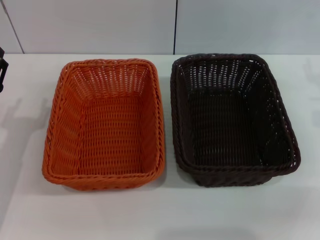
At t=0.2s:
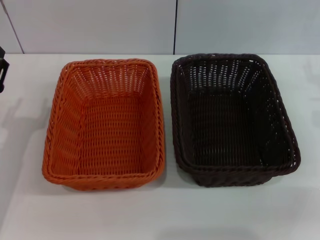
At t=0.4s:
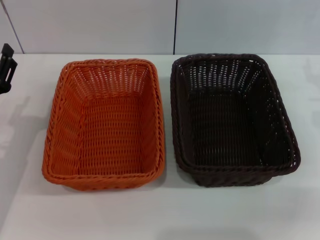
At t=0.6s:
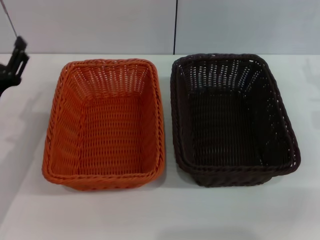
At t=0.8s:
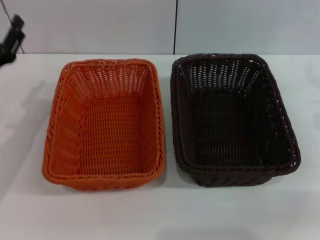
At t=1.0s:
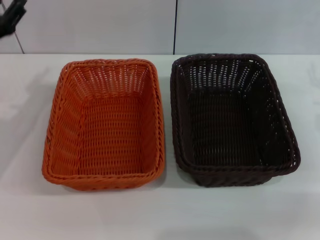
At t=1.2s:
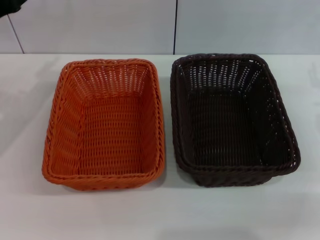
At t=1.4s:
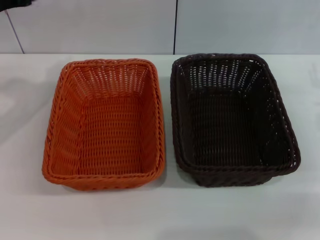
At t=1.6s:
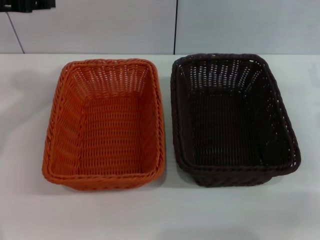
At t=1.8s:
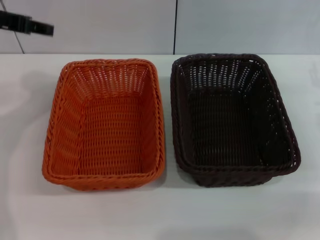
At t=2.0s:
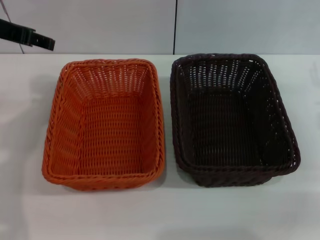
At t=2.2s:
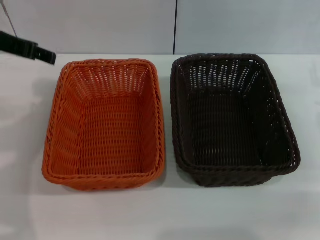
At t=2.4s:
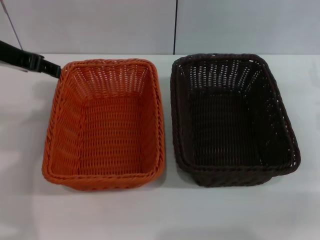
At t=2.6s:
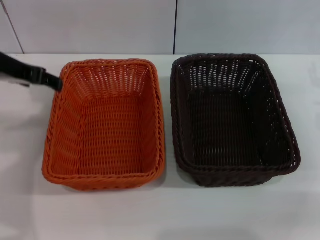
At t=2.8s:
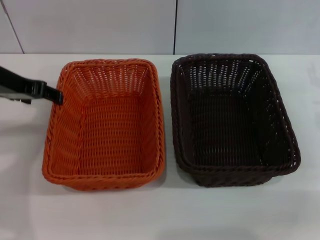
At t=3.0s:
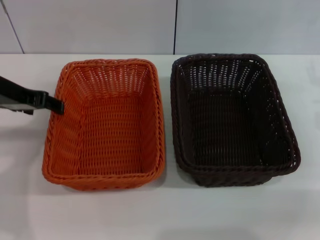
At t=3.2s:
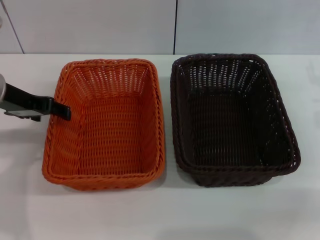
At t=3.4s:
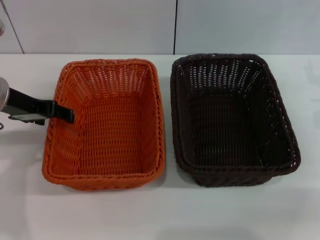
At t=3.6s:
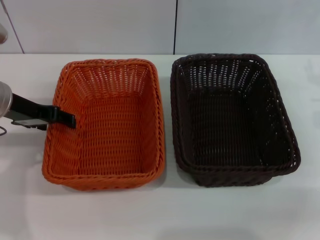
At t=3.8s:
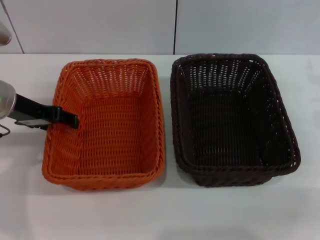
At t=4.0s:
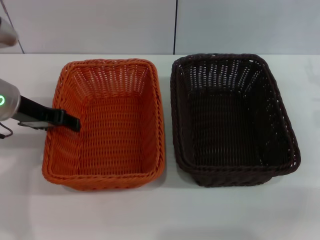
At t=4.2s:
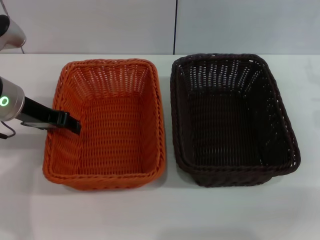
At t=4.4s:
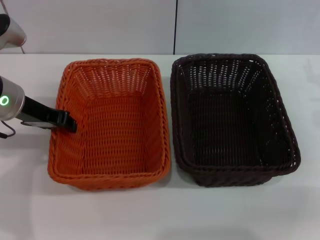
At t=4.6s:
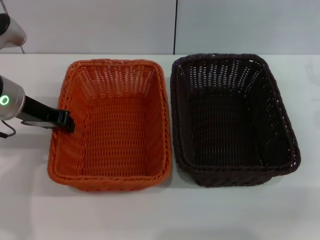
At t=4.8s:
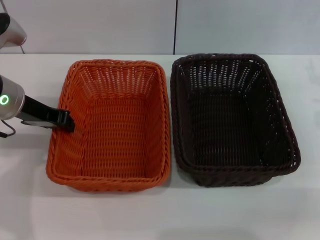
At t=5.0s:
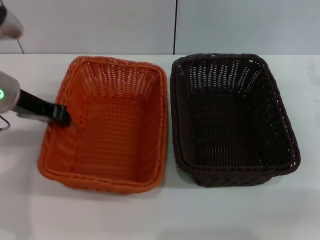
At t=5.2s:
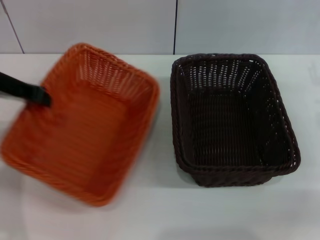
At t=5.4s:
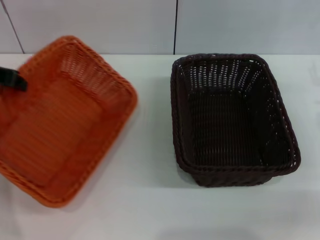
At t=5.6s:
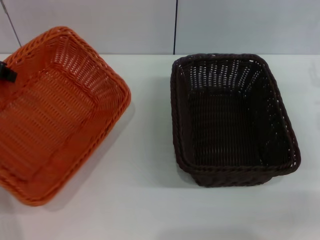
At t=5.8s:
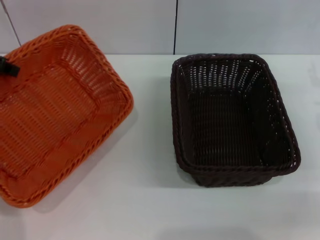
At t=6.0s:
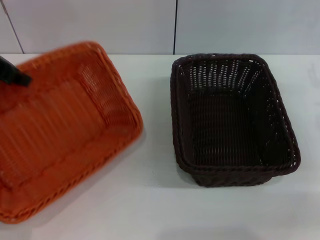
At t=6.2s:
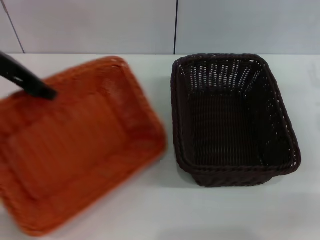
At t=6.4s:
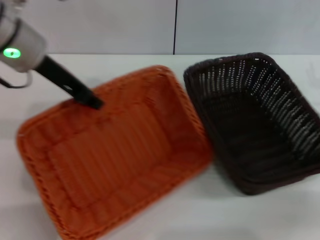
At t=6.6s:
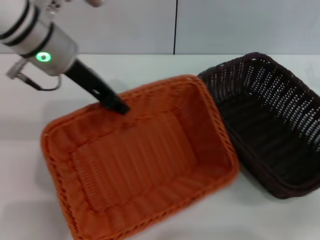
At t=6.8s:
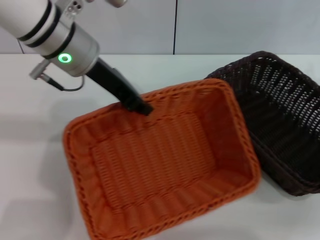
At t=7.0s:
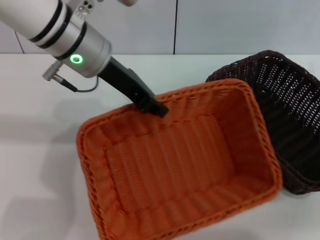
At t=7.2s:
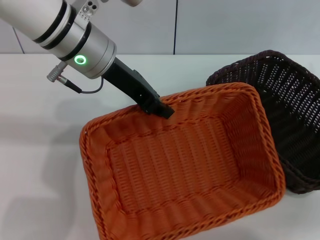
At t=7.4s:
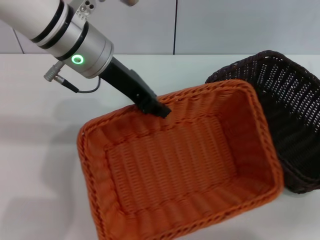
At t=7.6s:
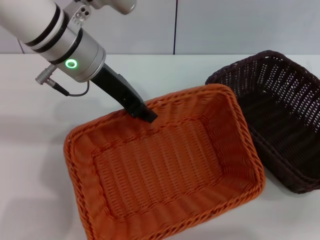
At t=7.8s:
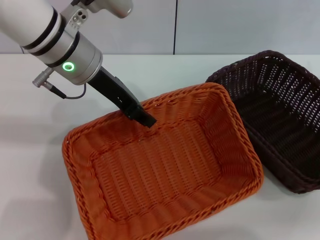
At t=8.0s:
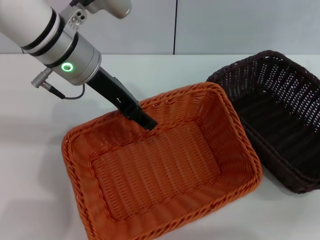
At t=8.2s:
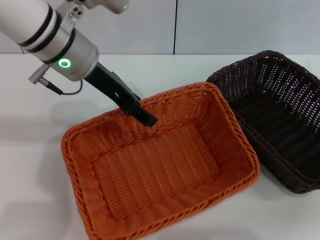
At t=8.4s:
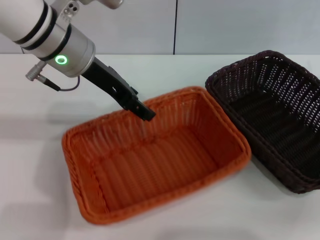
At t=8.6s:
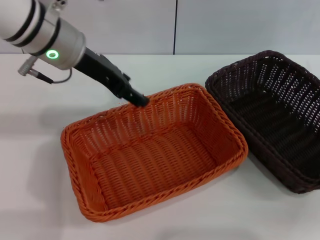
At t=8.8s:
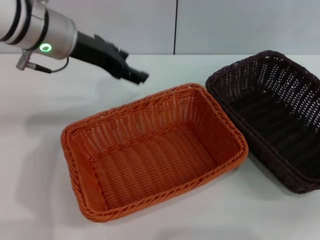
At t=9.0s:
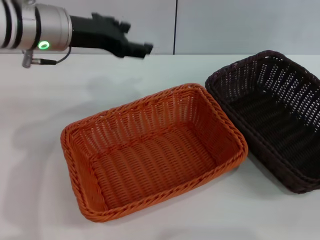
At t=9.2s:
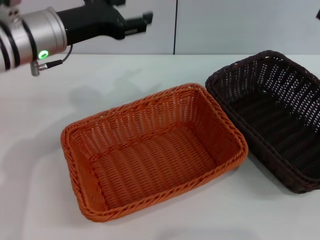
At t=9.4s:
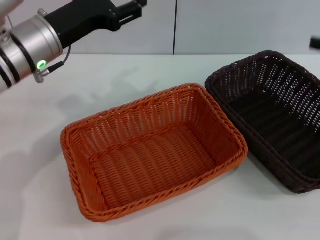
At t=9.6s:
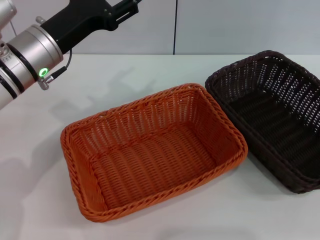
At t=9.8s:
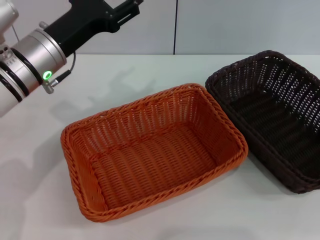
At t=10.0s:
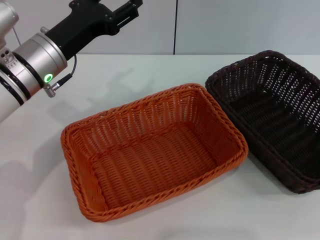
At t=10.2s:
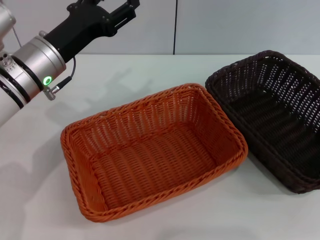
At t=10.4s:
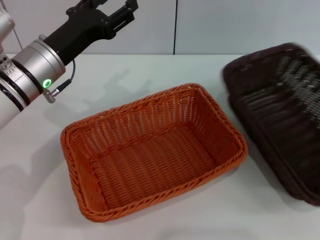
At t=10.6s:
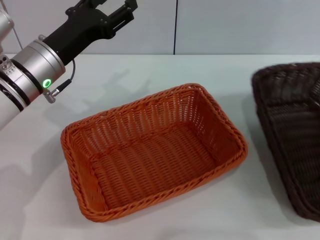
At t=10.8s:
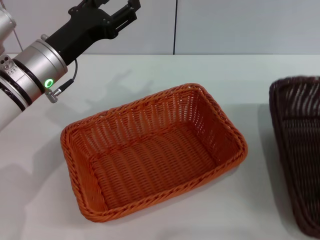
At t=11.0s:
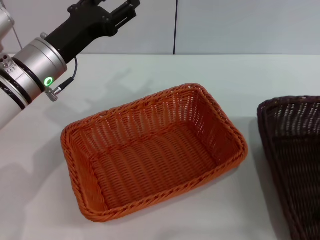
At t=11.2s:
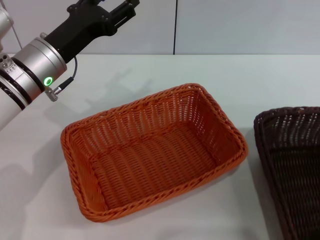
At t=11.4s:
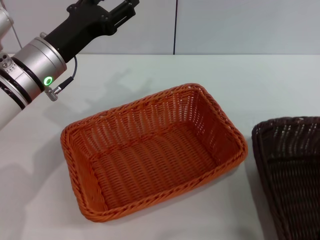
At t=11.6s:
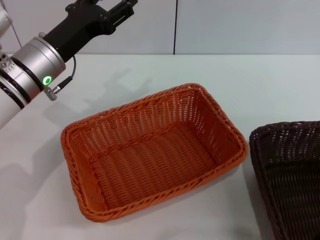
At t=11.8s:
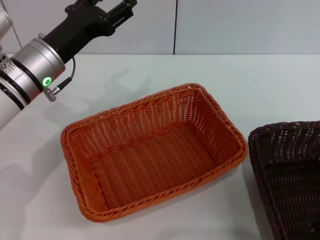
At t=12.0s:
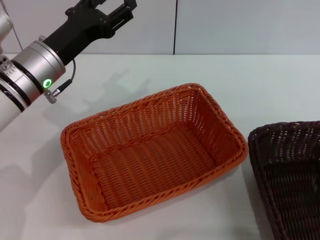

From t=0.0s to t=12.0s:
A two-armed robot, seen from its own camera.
Step, from t=0.0s to t=5.0s: Pick up the light basket with the left gripper.
Step, from t=5.4s to t=8.4s: Place the light basket in the center of view with the left gripper.
From t=0.0s to t=1.6s: The left gripper shifts some 25 cm upward and forward.
From t=1.6s to t=3.0s: The left gripper heads downward, covering approximately 5 cm.
From t=3.0s to t=4.4s: The left gripper closes up.
From t=4.4s to t=6.0s: The left gripper travels upward by about 10 cm, and closes its fingers.
From t=6.0s to t=7.6s: The left gripper is displaced to the right by roughly 15 cm.
From t=7.6s to t=9.0s: The left gripper opens.
From t=9.0s to t=10.4s: The right gripper goes about 5 cm upward. The left gripper moves downward, approximately 10 cm.

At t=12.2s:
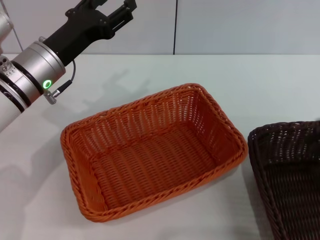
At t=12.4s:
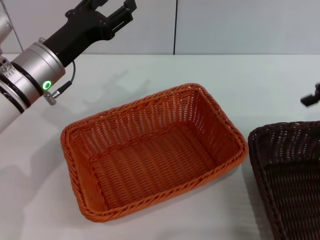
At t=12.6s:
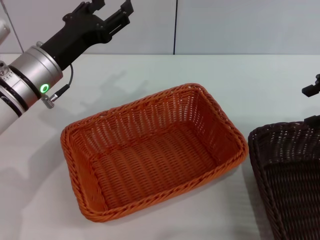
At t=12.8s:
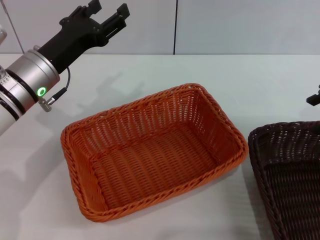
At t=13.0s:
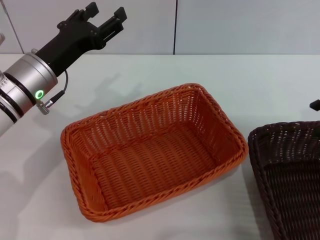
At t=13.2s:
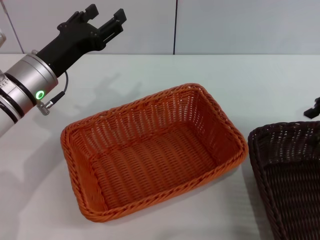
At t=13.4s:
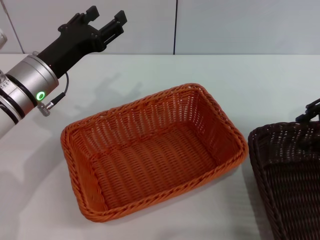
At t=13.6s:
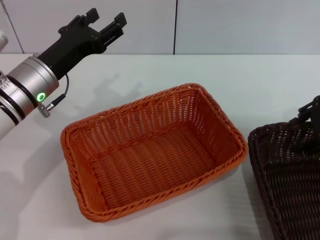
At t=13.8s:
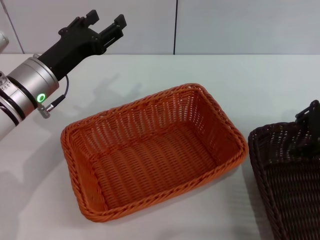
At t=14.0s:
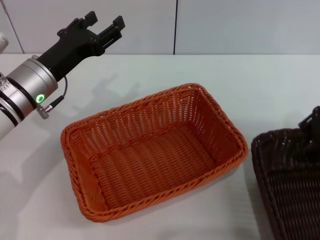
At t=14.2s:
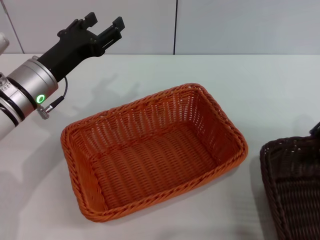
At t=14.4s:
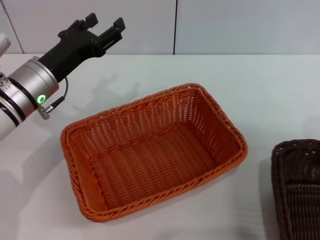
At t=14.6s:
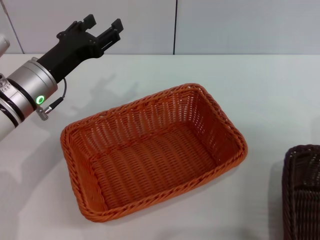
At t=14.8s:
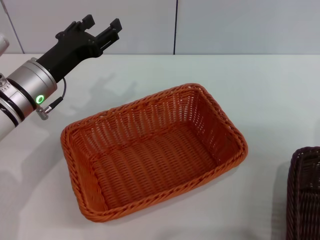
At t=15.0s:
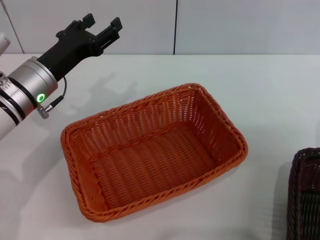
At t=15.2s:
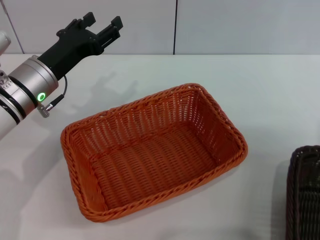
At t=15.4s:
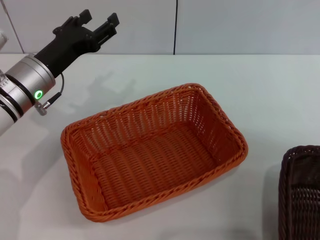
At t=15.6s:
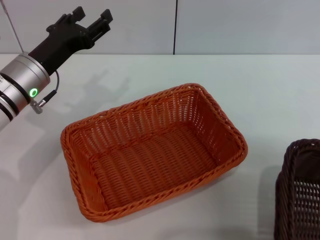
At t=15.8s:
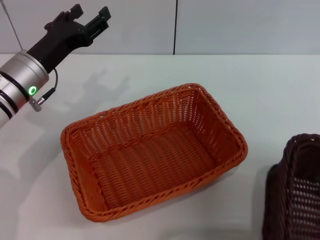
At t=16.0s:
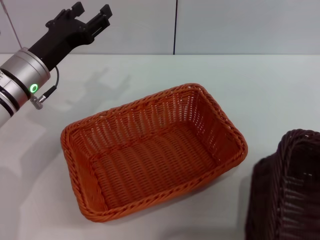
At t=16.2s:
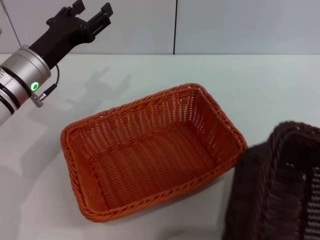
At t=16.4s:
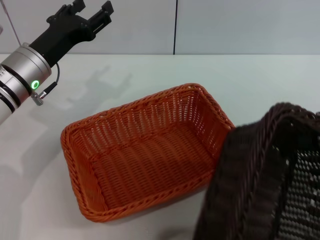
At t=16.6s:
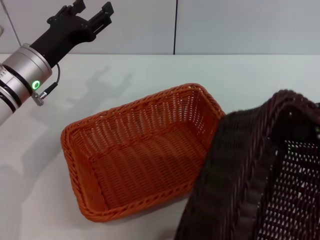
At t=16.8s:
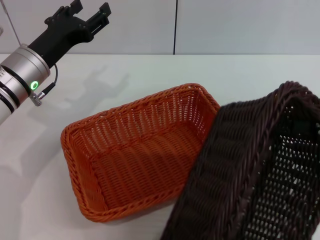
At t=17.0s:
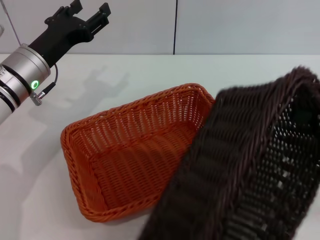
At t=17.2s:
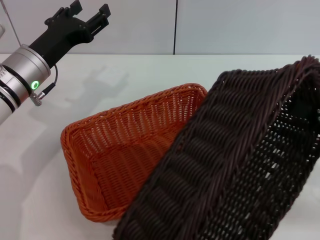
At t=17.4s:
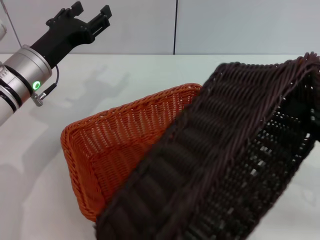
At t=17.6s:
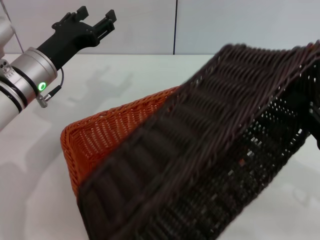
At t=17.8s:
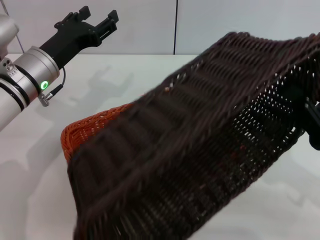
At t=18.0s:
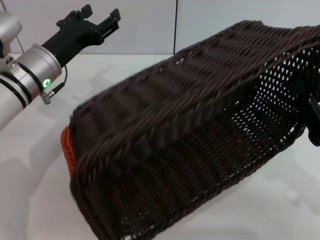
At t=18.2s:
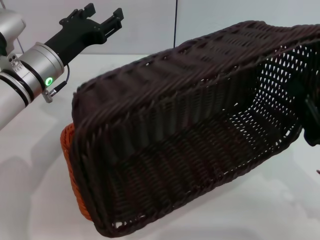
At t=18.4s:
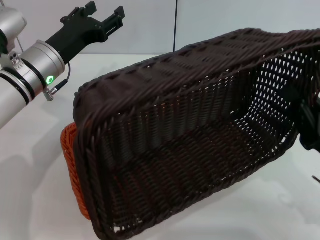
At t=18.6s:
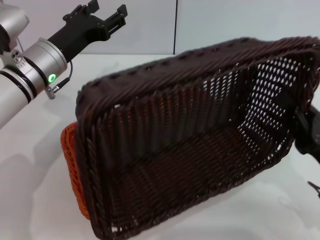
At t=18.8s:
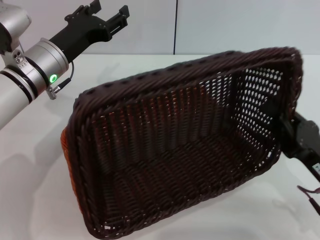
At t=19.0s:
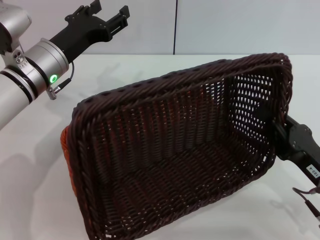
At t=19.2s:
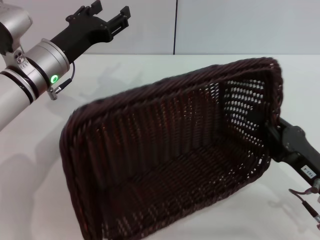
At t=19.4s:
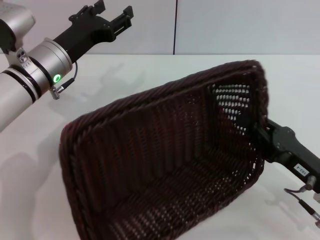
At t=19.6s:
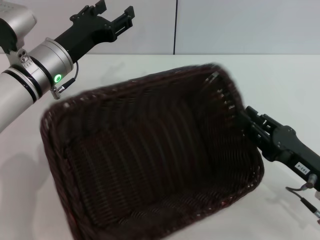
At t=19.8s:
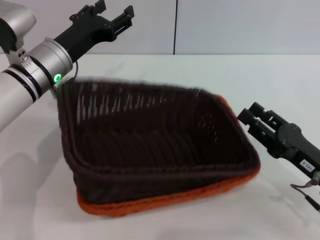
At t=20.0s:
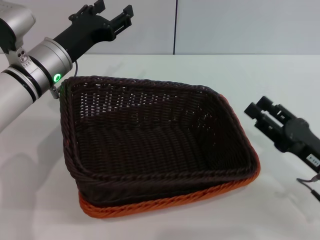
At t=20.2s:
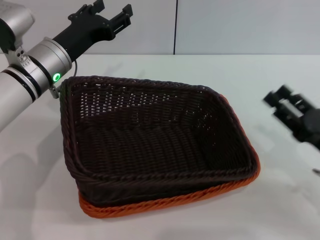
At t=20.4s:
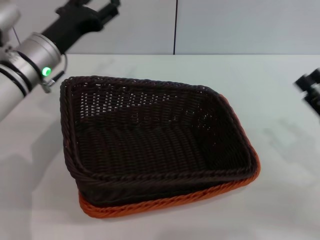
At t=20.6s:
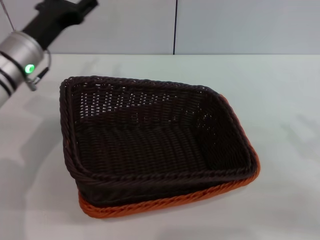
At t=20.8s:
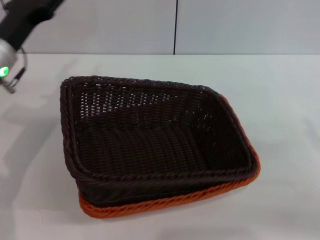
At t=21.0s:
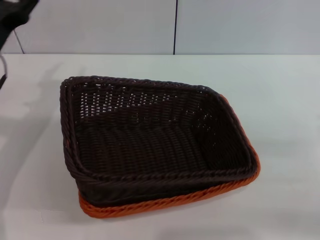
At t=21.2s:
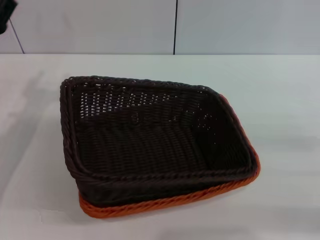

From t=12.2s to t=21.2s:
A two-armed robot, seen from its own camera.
Step, from t=12.2s to t=14.4s: Pick up the dark basket with the right gripper.
Step, from t=14.8s to t=19.8s: Place the dark basket on the light basket with the right gripper.
From t=12.2s to t=13.8s: The right gripper shifts roughly 10 cm downward and forward.
From t=13.8s to t=15.2s: The right gripper shifts some 5 cm to the right, and closes.
From t=15.2s to t=16.6s: The right gripper moves backward, roughly 5 cm.
From t=16.6s to t=18.2s: The right gripper goes some 15 cm downward, to the left and backward.
From t=18.2s to t=19.8s: The right gripper opens up.
From t=19.8s to t=21.2s: The right gripper heads to the right, covering some 10 cm, and opens its fingers, while the left gripper goes about 10 cm to the left and backward.
